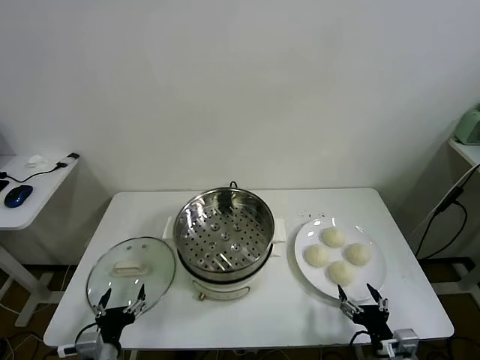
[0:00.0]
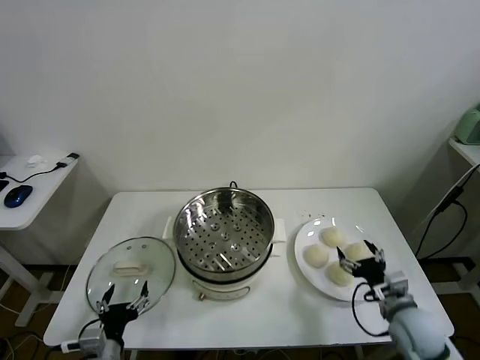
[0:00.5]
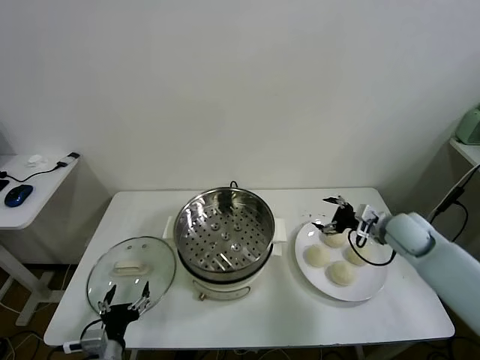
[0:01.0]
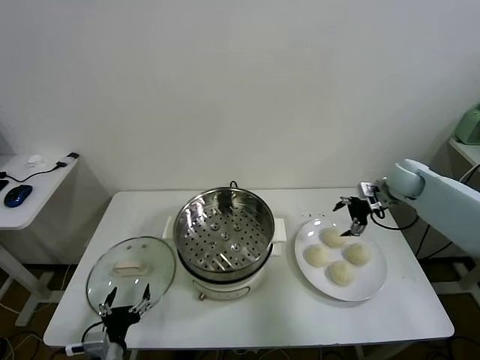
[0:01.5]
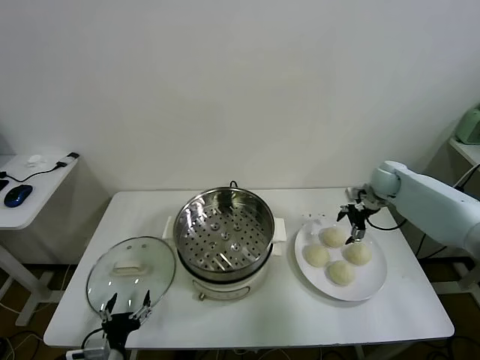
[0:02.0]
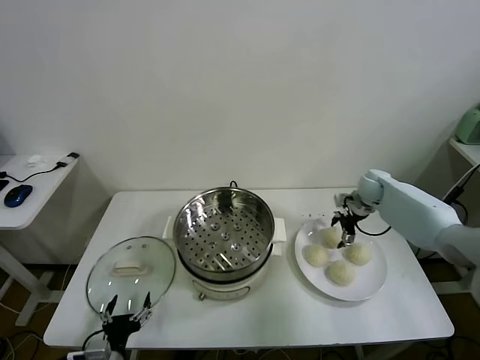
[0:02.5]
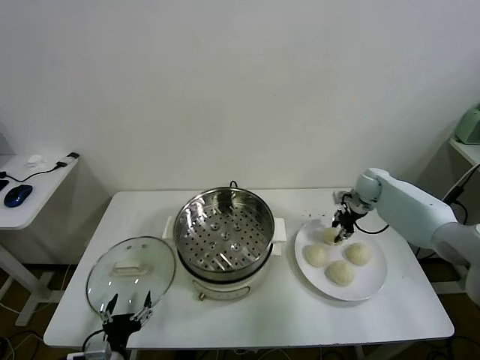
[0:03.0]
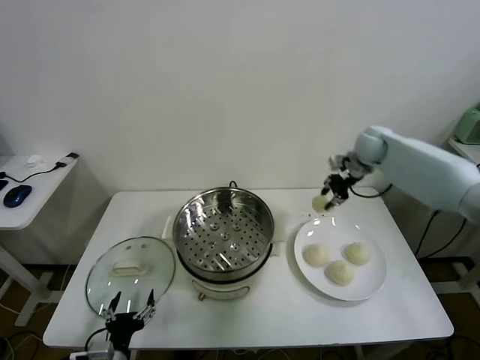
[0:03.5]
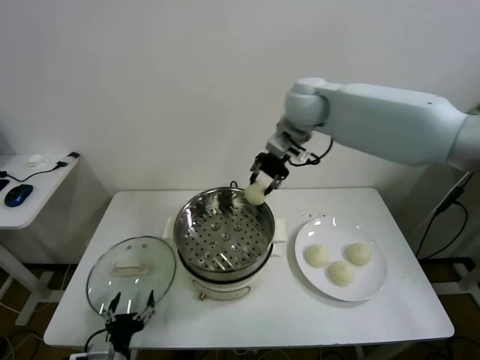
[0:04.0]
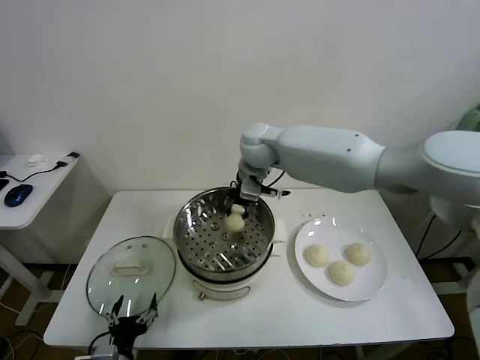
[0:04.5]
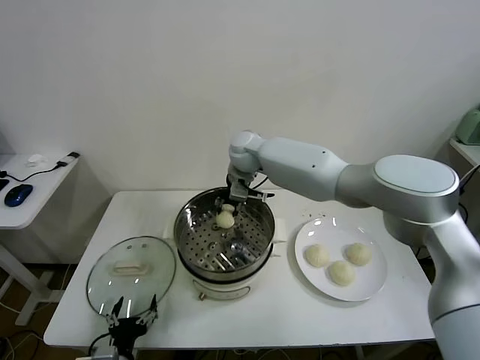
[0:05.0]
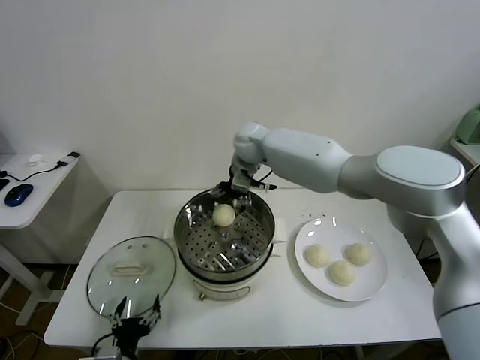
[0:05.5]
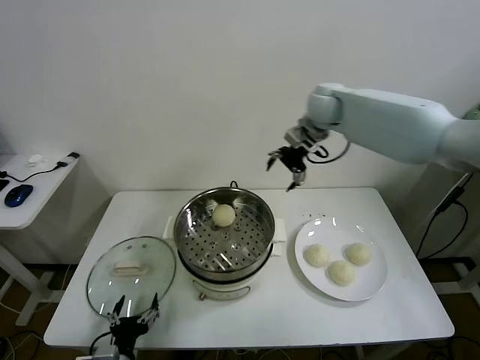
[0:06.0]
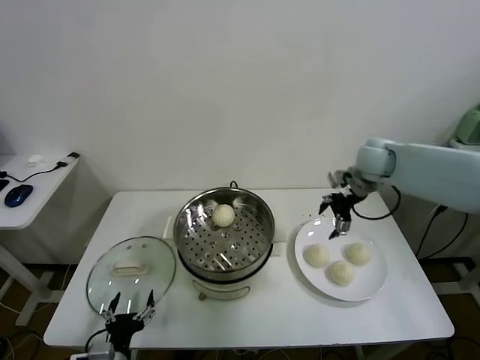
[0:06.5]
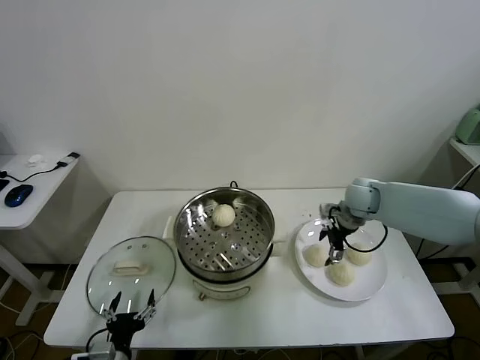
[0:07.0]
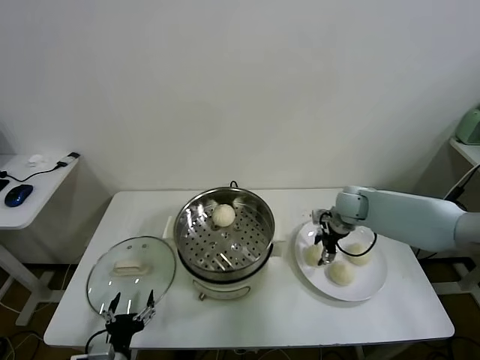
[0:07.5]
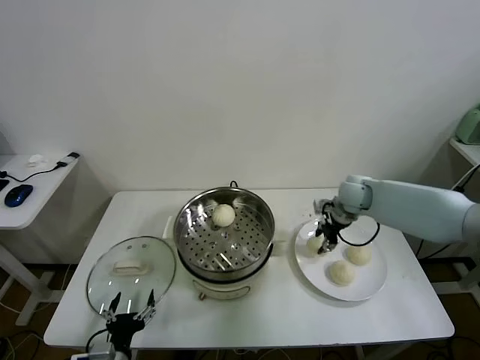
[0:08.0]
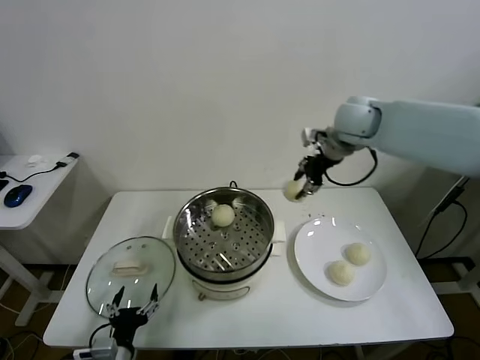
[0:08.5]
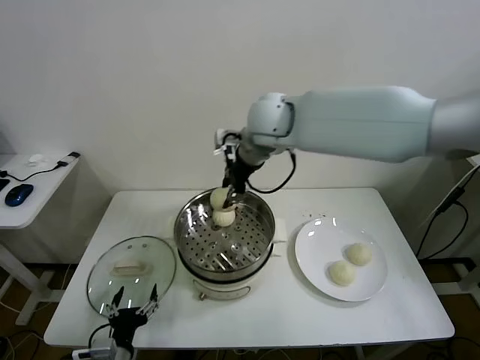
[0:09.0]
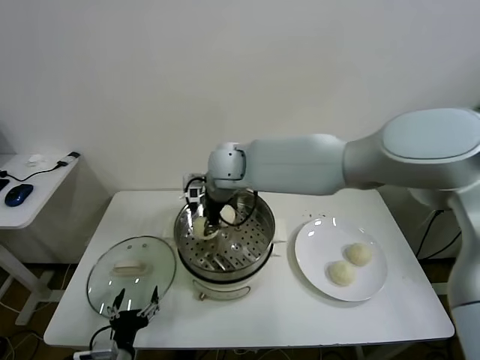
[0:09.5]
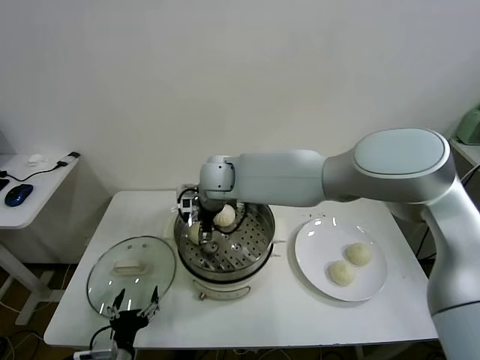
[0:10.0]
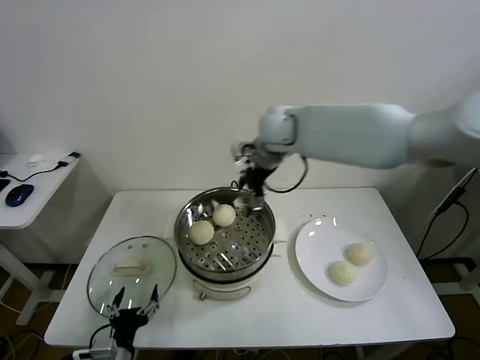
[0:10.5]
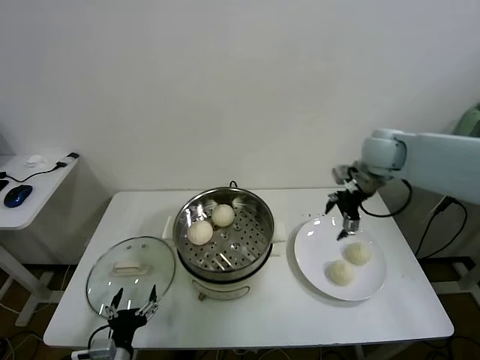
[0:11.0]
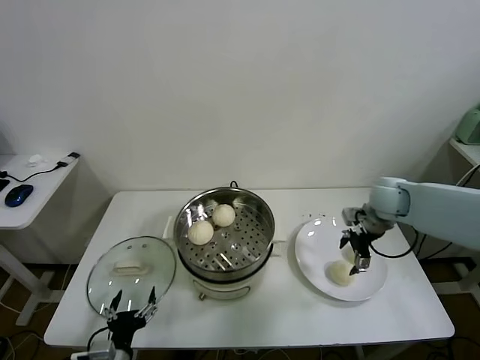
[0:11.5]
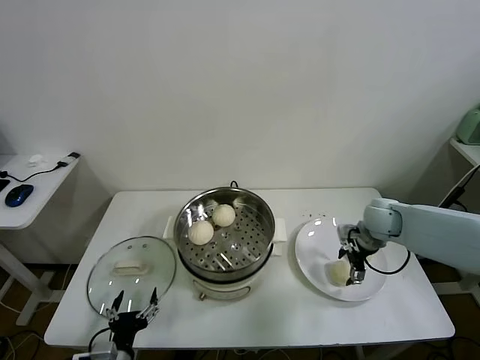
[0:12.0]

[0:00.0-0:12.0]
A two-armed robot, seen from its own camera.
Task of the whole recording: take steamed baozi put them in steamer.
Step, 0:00.0 to 0:02.5: Grasp the baozi in the plate with right gripper.
Step, 0:03.0 to 0:05.5: Place the baozi on the steamer with right gripper.
Step, 0:06.0 to 0:07.5: Grasp the baozi in the plate with right gripper.
Step, 0:08.0 to 0:10.0: Place the baozi on the steamer with right gripper.
0:02.0 to 0:04.0: The right gripper moves to the left and upward, approximately 35 cm, and closes.
0:04.0 to 0:06.0: The right gripper shifts about 15 cm to the right, and opens its fingers.
0:06.0 to 0:08.0: The right gripper is displaced downward by about 20 cm, and closes.
0:08.0 to 0:10.0: The right gripper heads to the left, covering approximately 35 cm, and opens up.
0:10.0 to 0:12.0: The right gripper moves to the right, approximately 40 cm.

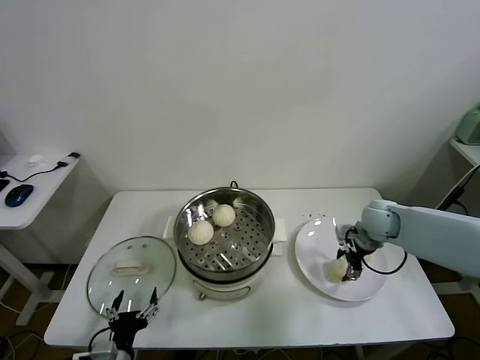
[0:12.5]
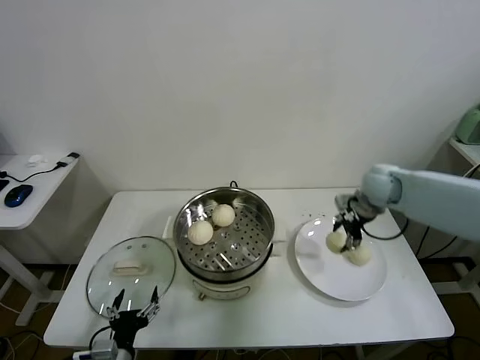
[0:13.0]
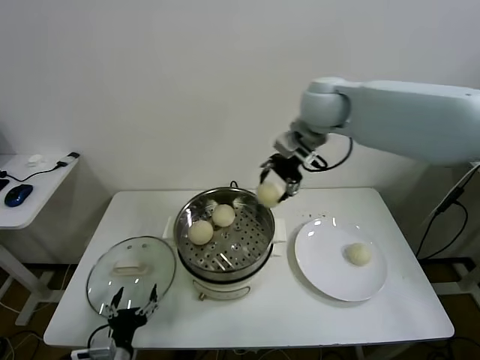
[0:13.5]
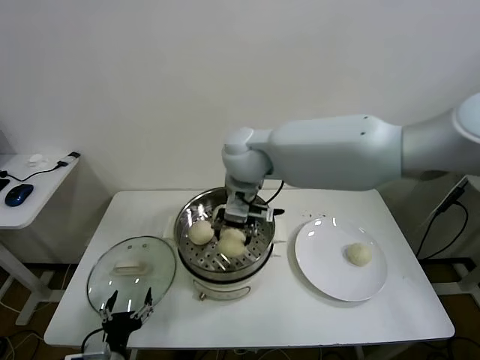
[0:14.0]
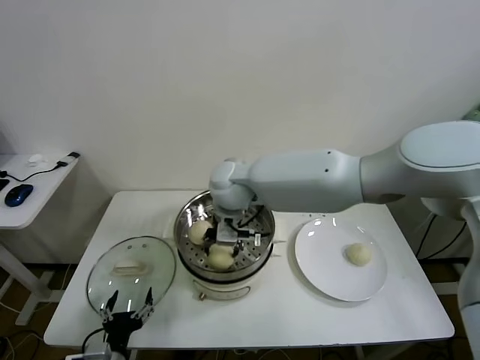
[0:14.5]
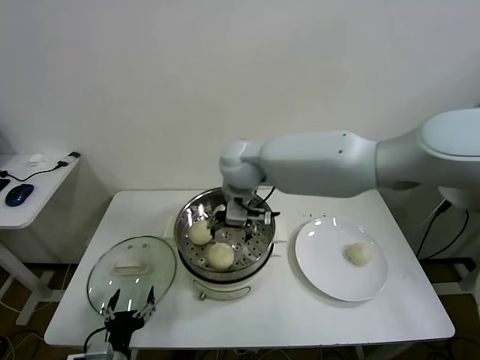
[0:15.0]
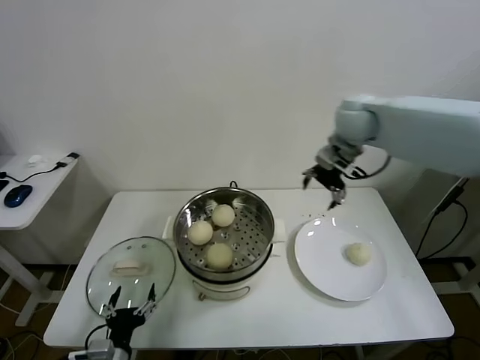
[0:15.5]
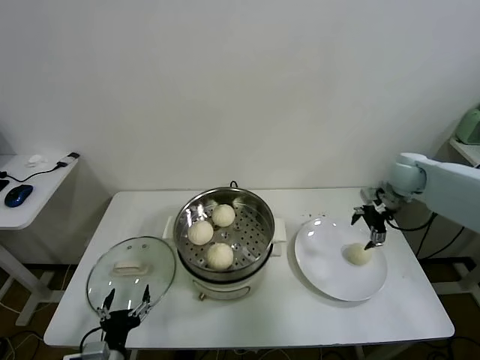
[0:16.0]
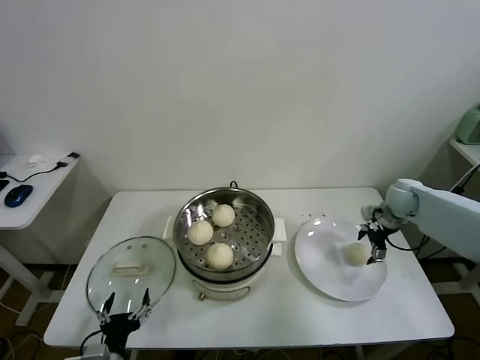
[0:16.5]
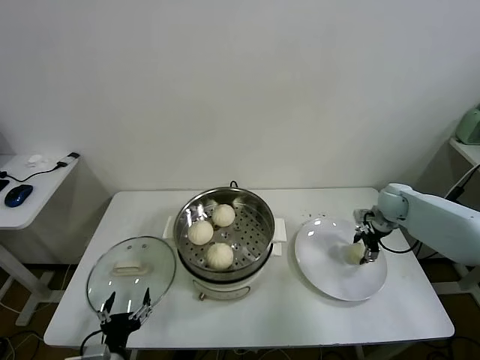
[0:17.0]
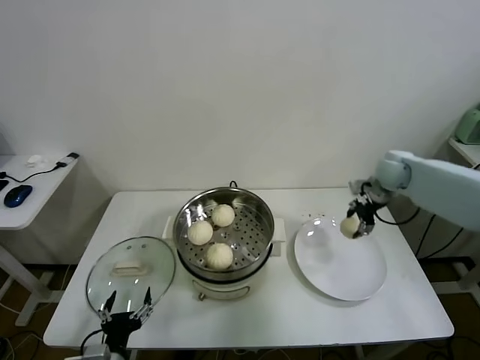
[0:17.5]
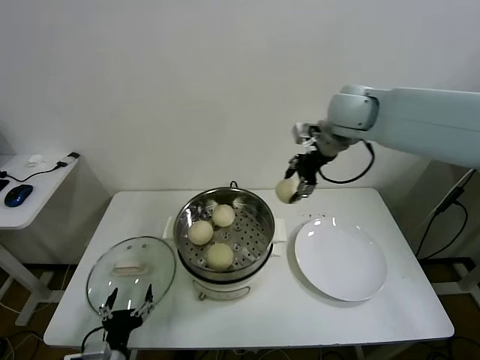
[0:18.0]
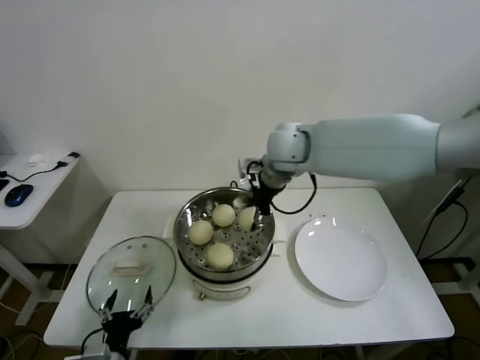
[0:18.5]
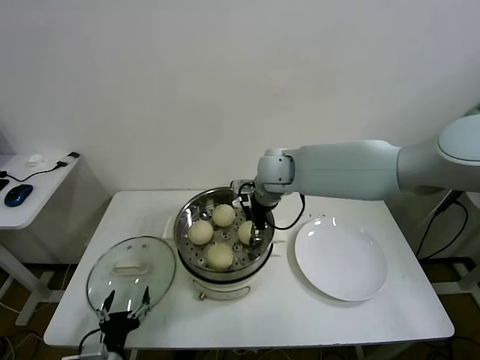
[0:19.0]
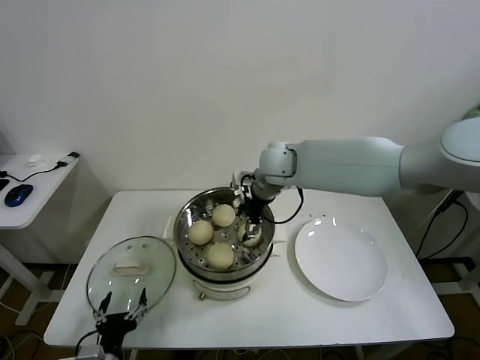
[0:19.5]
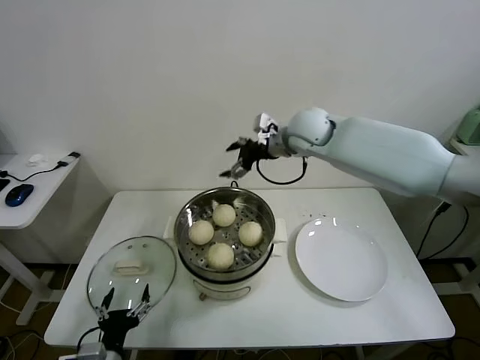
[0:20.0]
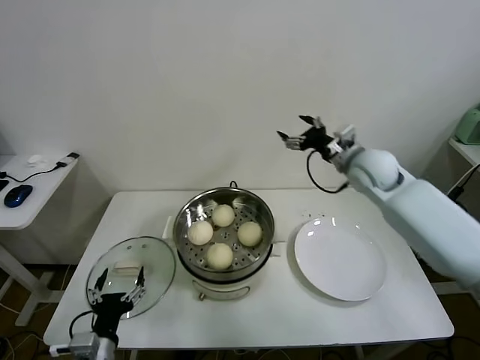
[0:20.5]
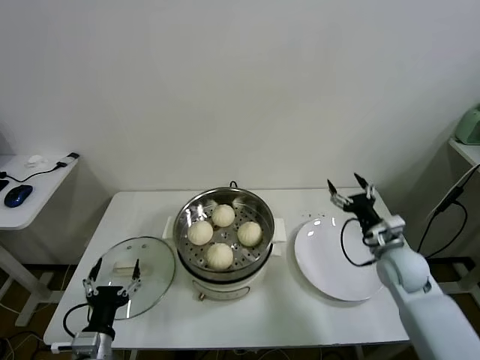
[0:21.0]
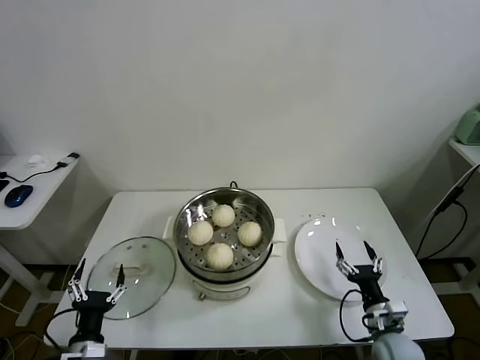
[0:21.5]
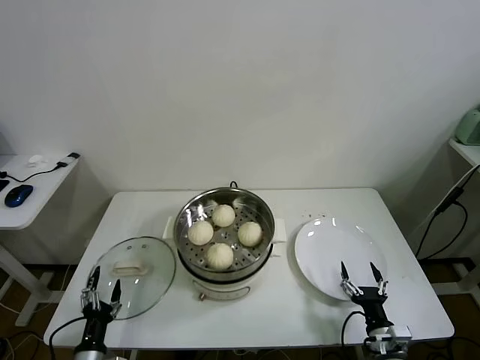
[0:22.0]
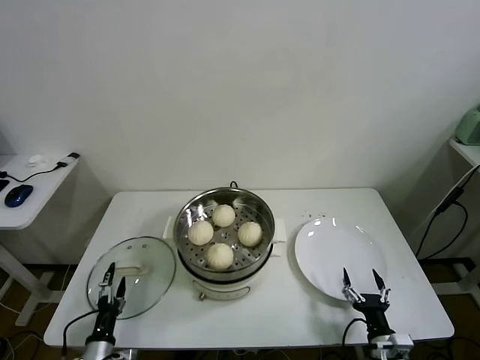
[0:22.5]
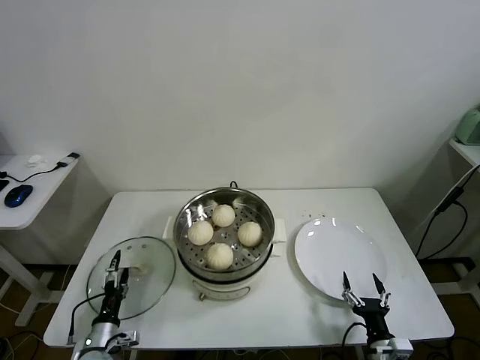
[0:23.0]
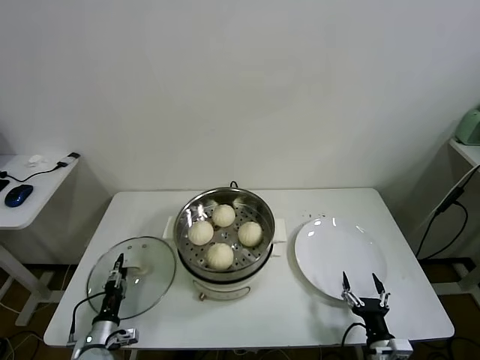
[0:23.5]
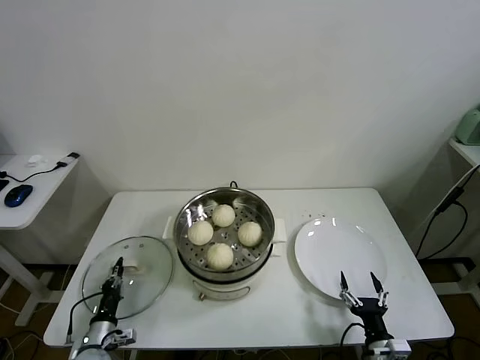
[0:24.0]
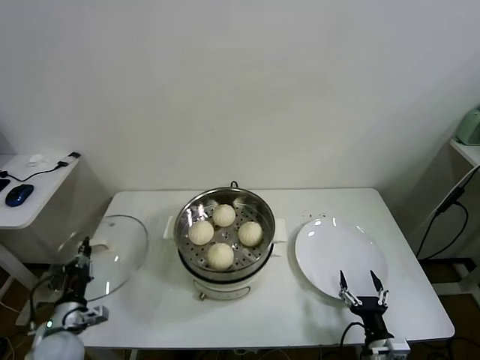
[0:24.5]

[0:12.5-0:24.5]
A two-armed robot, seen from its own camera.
Task of the whole recording: take steamed baozi put them in steamer.
Step, 0:13.0 to 0:14.5: Place the baozi on the steamer with right gripper.
Step, 0:15.5 to 0:17.0: Grasp the baozi in the plate with right gripper.
Step, 0:17.5 to 0:19.0: Place the baozi on the steamer with right gripper.
Step, 0:19.5 to 0:23.5: Grasp the pot lid with left gripper.
0:12.5 to 0:14.5: The right gripper heads to the left, covering about 35 cm.
0:14.5 to 0:16.5: The right gripper is displaced to the right by some 40 cm, and opens its fingers.
0:16.5 to 0:18.5: The right gripper shifts some 40 cm to the left and upward, and closes its fingers.
0:18.5 to 0:20.5: The right gripper moves to the right, some 20 cm, and opens.
0:20.5 to 0:22.5: The left gripper travels downward and to the left by approximately 15 cm. The right gripper travels backward and downward by some 50 cm.
0:22.5 to 0:24.5: The left gripper moves upward and forward, some 10 cm, and closes up.

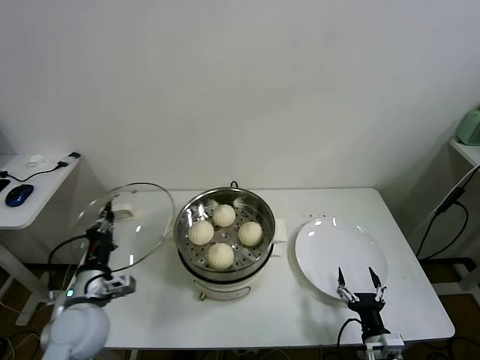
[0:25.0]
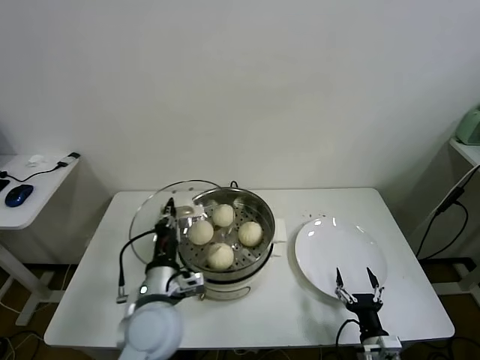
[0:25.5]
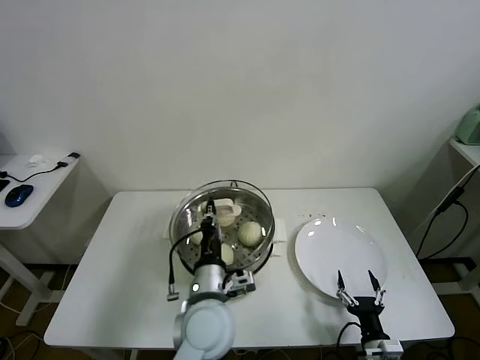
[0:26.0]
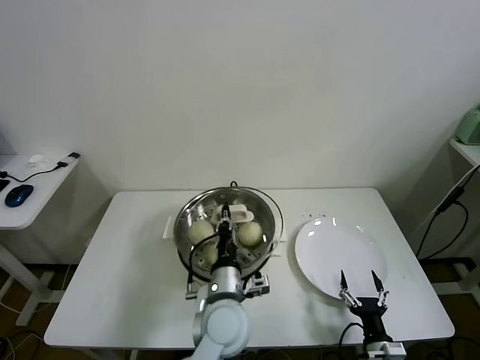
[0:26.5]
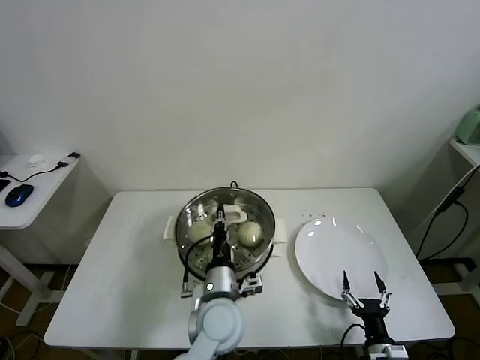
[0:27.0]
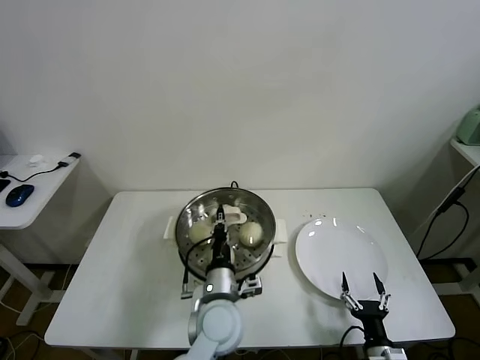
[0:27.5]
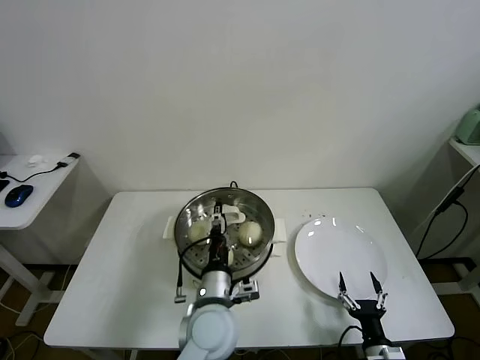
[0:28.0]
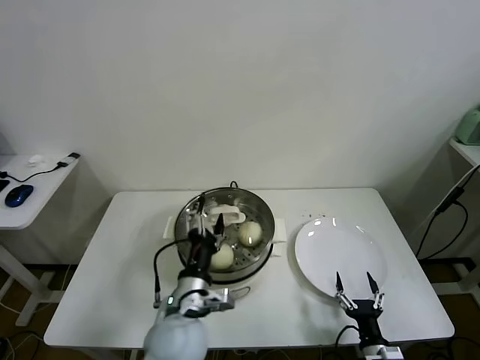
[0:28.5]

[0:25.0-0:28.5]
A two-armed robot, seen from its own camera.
Task of the whole recording: take steamed baozi put them in steamer.
Step, 0:25.0 to 0:28.0: Place the pot lid on the steamer with left gripper.
0:25.0 to 0:27.0: The left gripper moves to the right, about 30 cm.
0:27.0 to 0:28.5: The left gripper shifts approximately 5 cm to the left, and opens its fingers.
